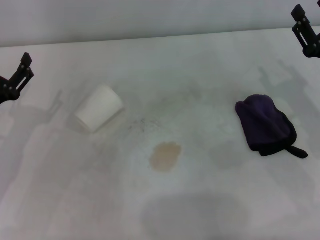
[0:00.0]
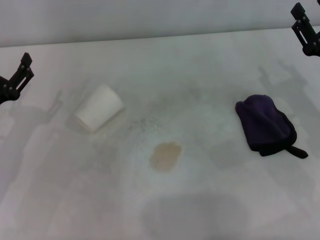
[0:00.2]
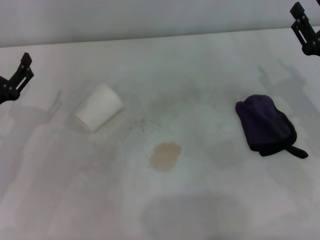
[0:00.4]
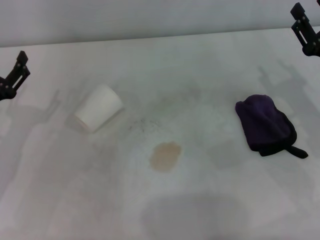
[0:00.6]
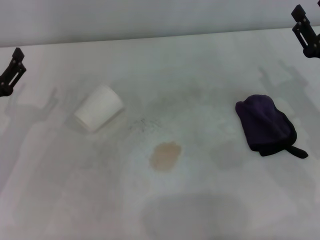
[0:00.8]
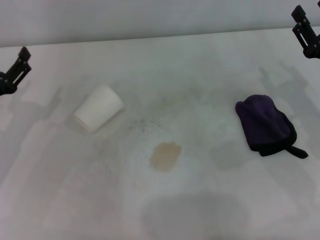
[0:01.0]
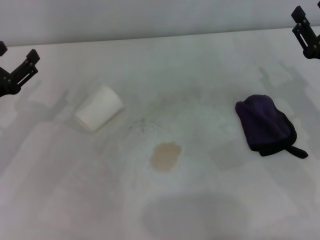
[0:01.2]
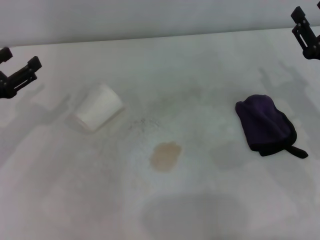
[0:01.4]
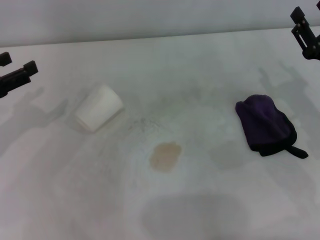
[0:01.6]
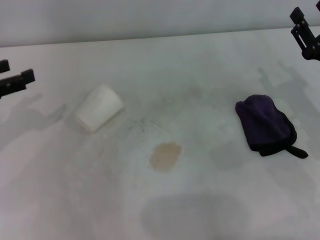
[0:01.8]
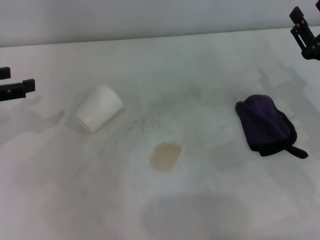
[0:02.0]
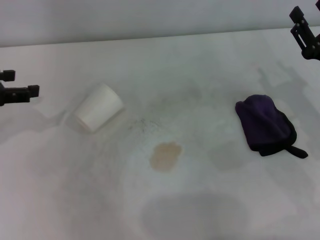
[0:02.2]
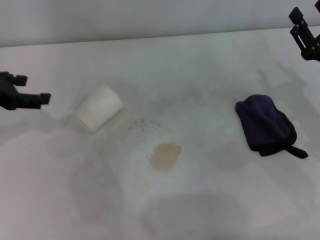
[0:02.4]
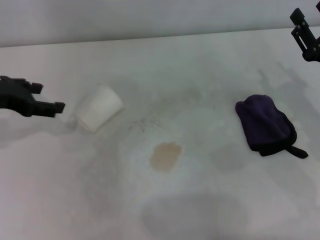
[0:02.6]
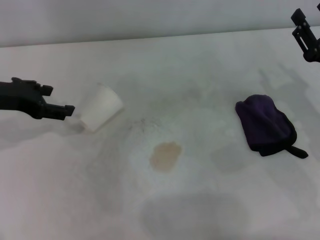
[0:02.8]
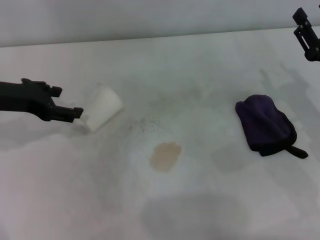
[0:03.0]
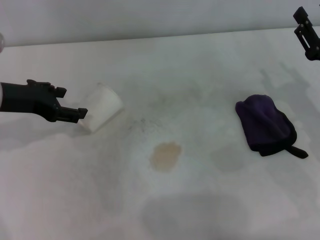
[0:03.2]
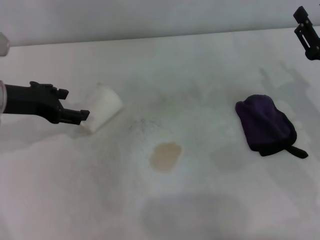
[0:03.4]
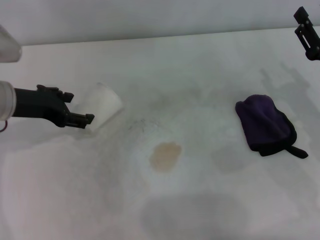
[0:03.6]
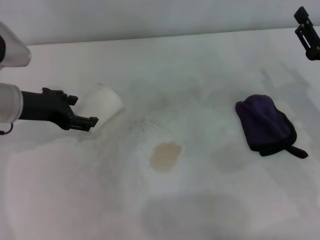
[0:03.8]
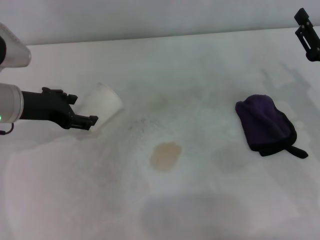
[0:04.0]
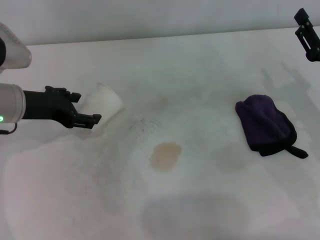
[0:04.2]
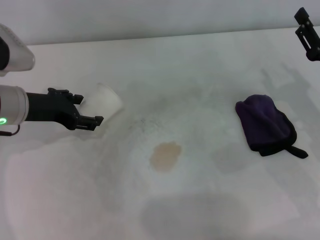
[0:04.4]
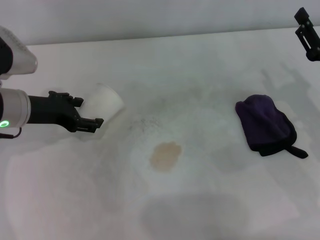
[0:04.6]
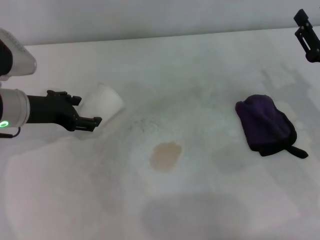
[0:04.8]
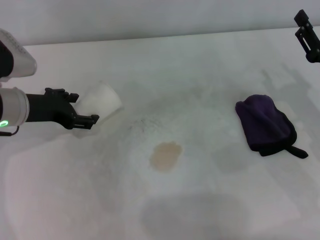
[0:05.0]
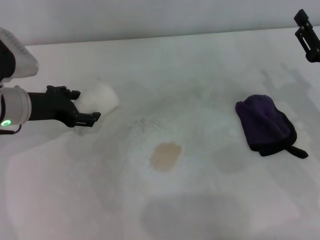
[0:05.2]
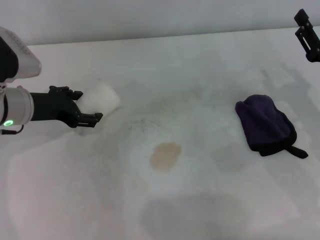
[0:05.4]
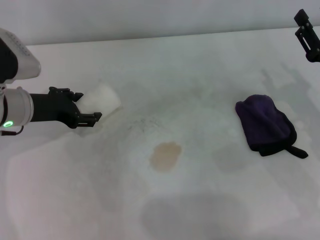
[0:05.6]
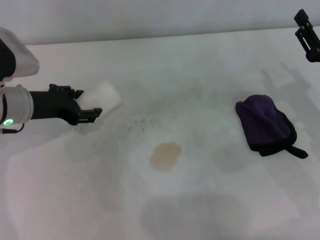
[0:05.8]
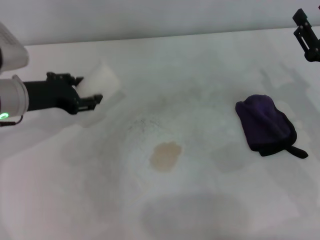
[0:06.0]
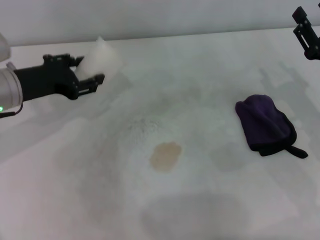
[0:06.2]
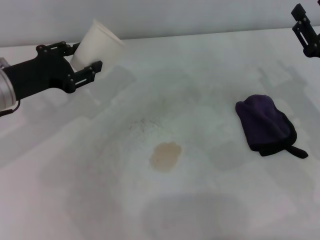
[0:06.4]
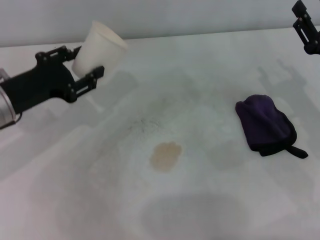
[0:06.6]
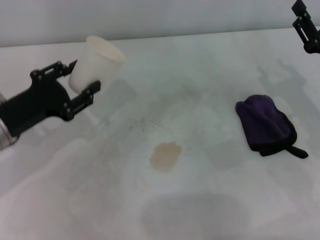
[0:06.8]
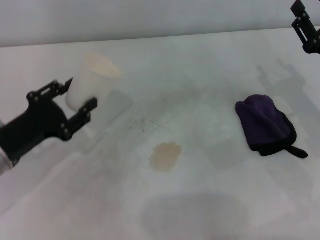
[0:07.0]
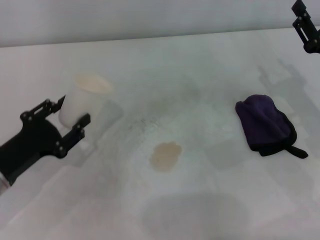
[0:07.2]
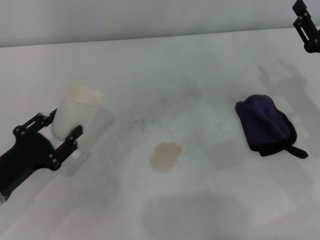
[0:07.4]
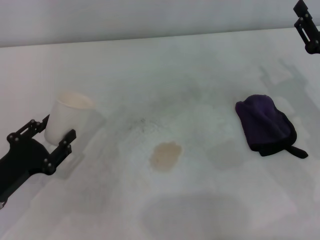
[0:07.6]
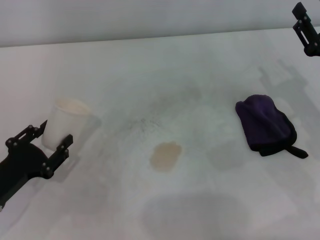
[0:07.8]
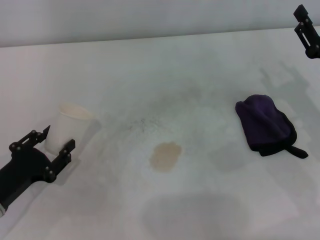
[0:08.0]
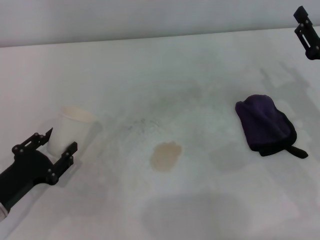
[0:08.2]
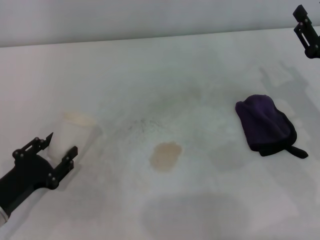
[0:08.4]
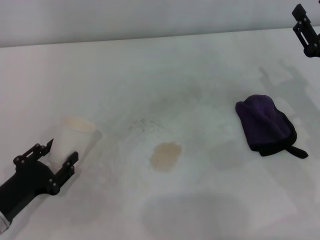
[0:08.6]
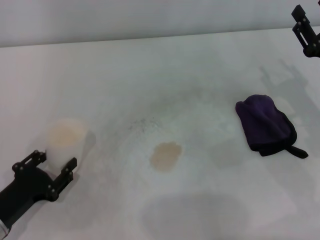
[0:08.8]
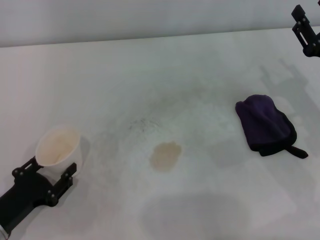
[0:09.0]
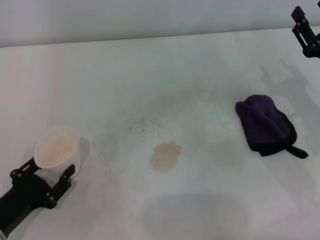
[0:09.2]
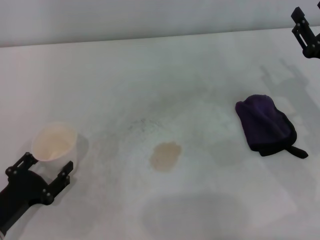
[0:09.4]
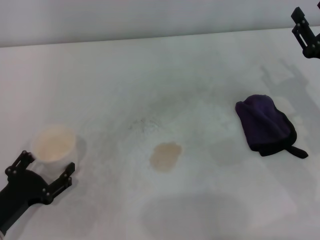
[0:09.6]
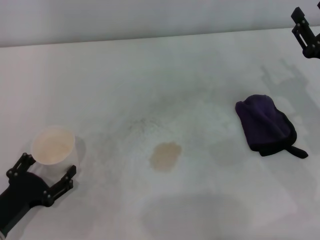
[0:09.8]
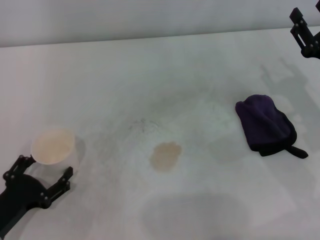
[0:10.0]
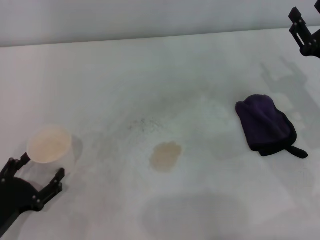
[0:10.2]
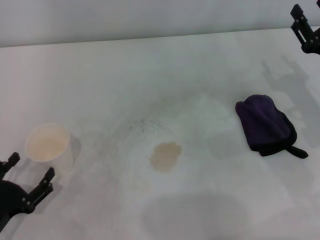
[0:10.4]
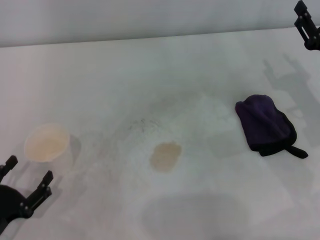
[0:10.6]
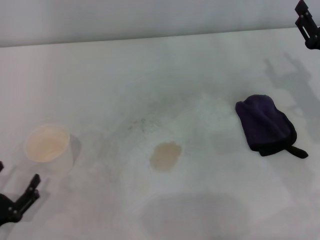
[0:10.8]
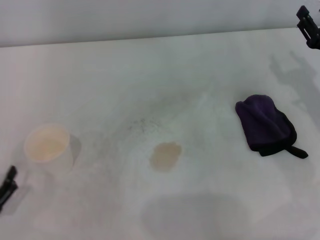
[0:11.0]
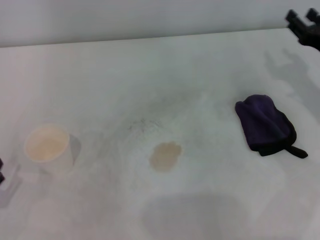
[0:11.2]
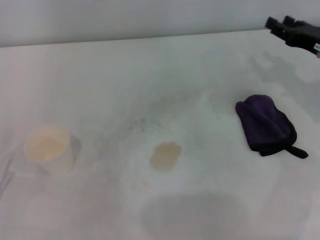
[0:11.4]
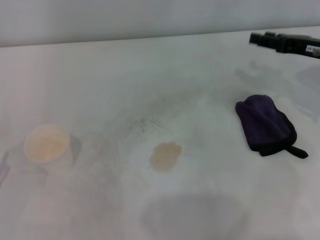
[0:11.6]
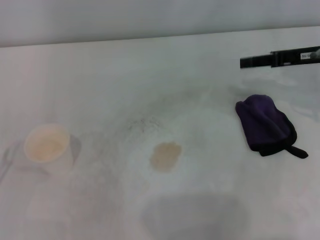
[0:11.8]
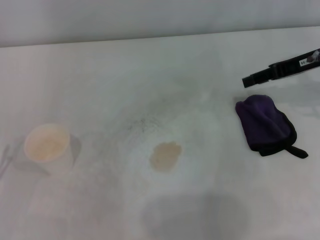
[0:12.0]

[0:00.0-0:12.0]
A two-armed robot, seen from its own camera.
Step, 0:00.0 to 0:05.6: Grasp the paper cup with the left gripper.
Step, 0:05.8 to 0:09.6: Stand the paper cup upright with the left gripper.
0:00.0 to 0:01.6: The left gripper heads upward, covering approximately 5 cm.
0:01.6 to 0:03.0: The left gripper is displaced to the right and forward by about 10 cm.
0:03.0 to 0:04.4: The left gripper shifts by roughly 5 cm.
0:04.4 to 0:06.0: The left gripper closes up.
0:06.0 to 0:07.6: The left gripper goes some 15 cm backward and downward, and closes up.
0:07.6 to 0:09.0: There are only small adjustments of the grippers.
0:09.0 to 0:10.4: The left gripper opens its fingers.
0:10.4 to 0:12.0: The right gripper shifts about 10 cm upward and forward, while the left gripper ends up about 5 cm from where it was.

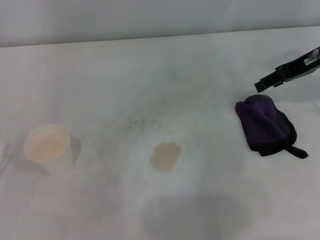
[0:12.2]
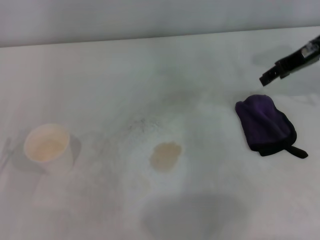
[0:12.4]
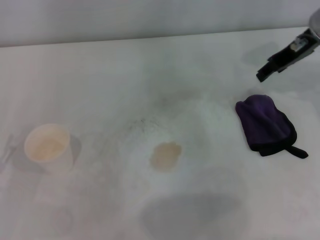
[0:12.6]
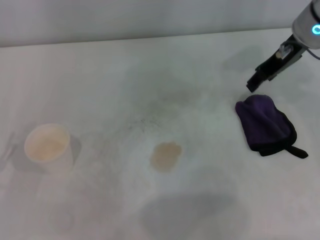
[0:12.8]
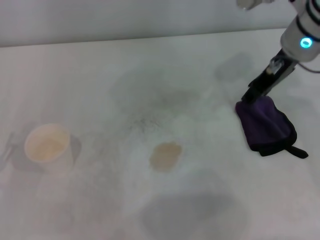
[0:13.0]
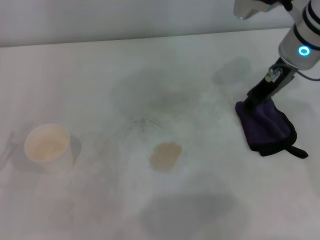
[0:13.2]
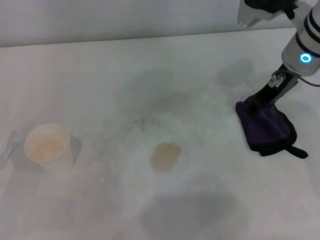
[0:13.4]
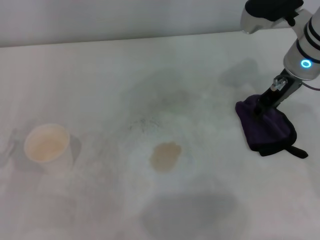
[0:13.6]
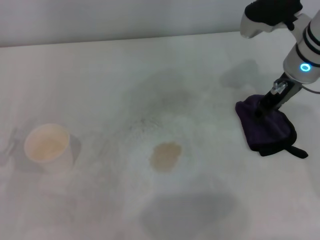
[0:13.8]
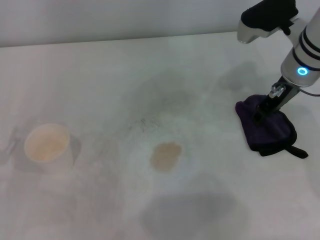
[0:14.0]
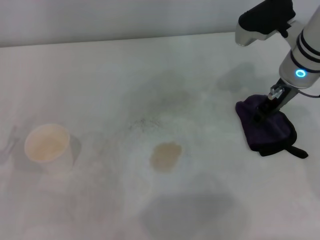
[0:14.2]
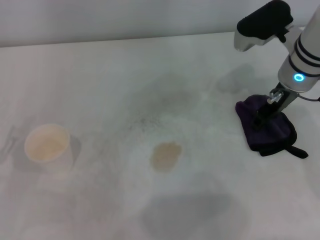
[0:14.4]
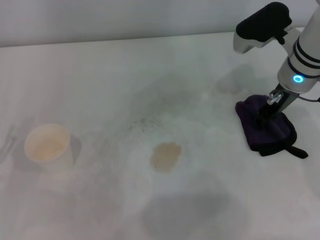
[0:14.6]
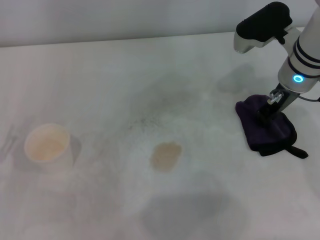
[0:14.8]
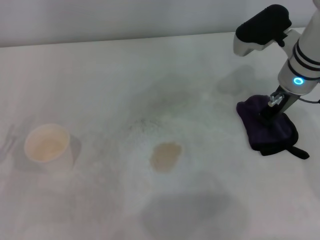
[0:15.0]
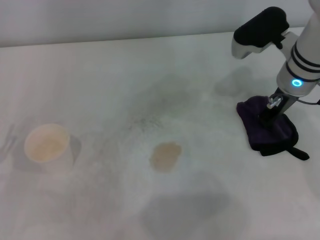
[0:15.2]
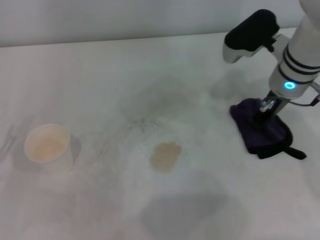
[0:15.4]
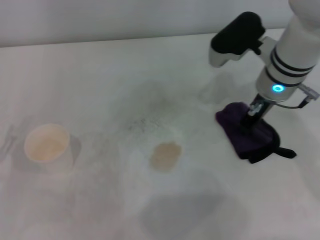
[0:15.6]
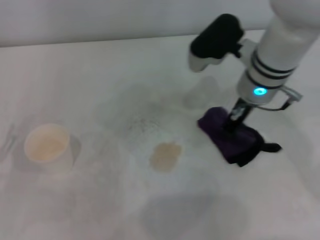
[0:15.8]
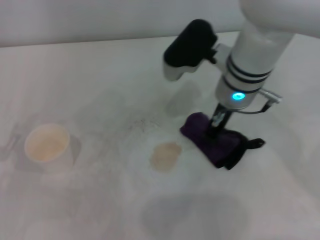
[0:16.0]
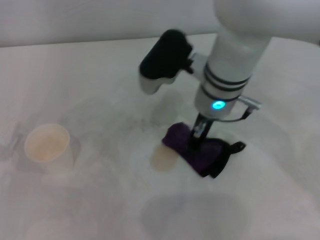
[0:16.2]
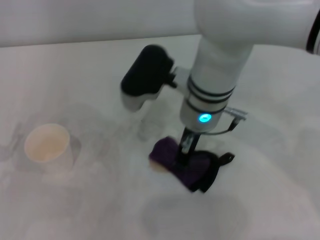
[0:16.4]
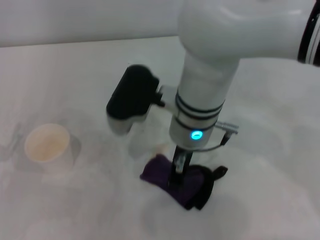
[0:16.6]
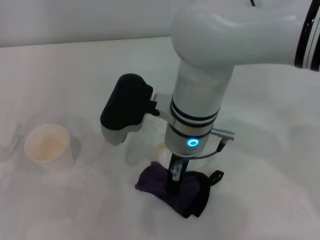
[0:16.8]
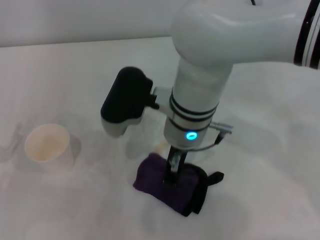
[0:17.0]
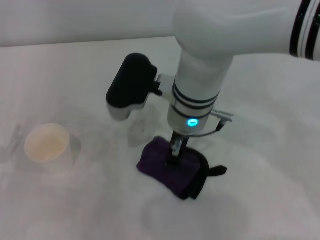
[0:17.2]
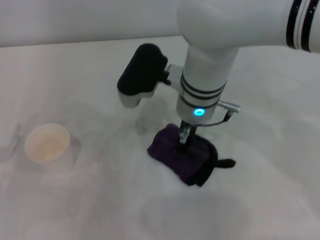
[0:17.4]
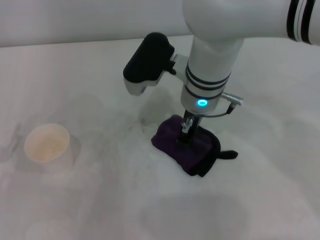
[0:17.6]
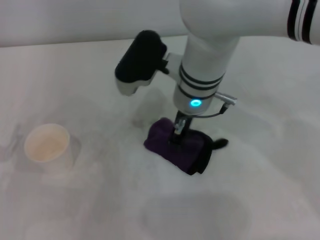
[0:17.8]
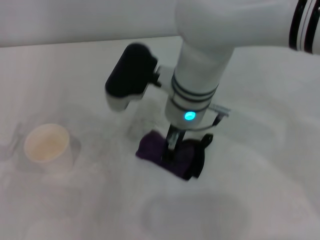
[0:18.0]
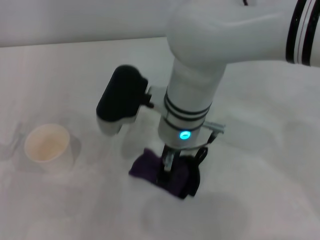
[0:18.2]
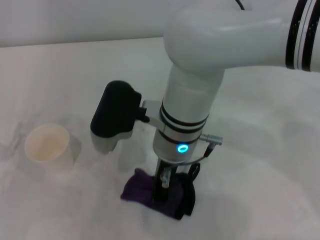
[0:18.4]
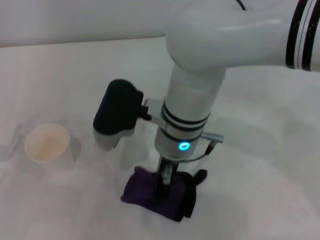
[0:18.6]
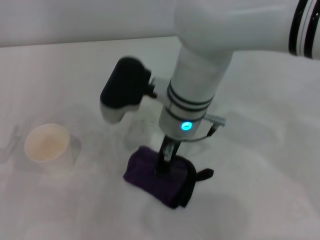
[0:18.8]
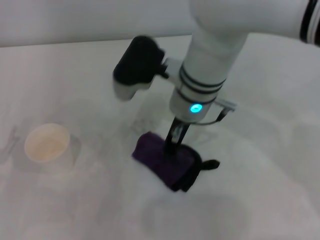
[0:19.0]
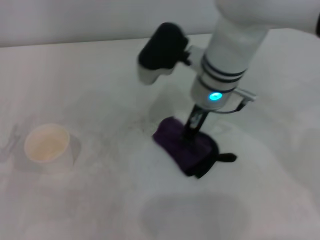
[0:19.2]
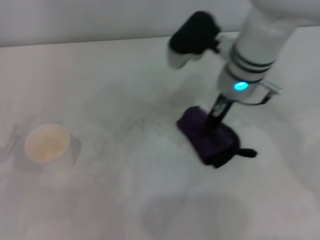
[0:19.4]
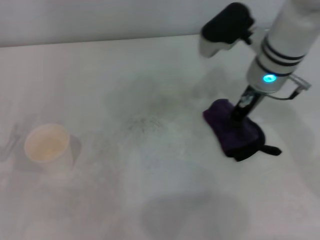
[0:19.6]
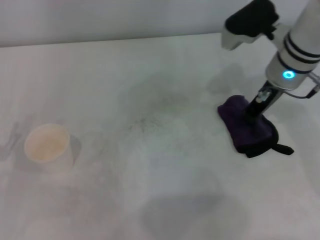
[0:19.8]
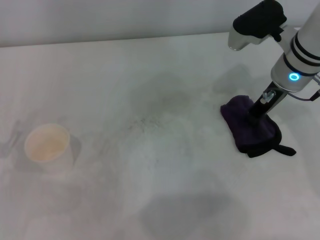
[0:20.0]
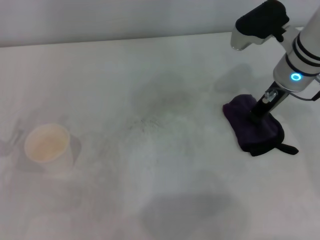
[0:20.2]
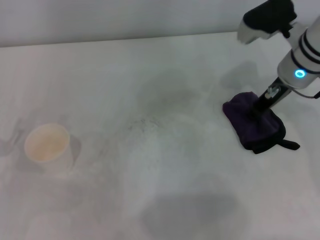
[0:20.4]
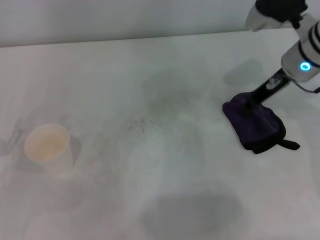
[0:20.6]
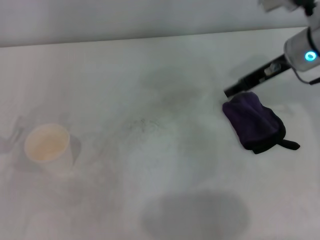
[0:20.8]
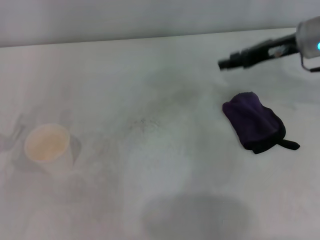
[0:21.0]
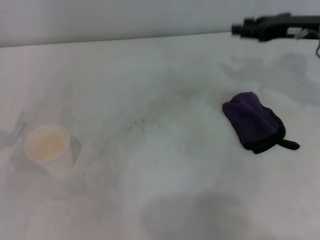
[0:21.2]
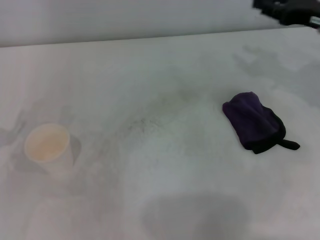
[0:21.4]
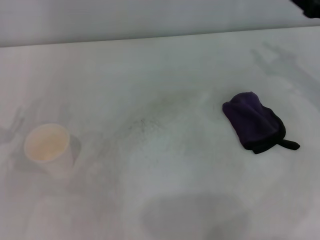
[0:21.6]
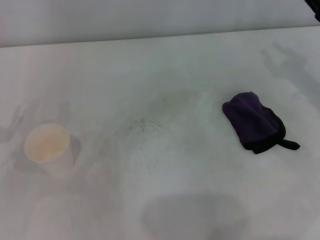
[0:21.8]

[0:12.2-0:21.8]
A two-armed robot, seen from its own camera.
Step, 0:12.2 to 0:14.8: Grasp the rag with the right gripper.
Step, 0:15.2 to 0:19.4: Wipe the stains off the table with the right gripper.
Step, 0:19.6 to 0:20.4: Place the rag on the table with the right gripper.
0:12.2 to 0:13.8: The right gripper moves to the left, roughly 10 cm.
0:13.8 to 0:15.4: The right gripper closes its fingers.
0:15.4 to 0:17.0: The right gripper shifts roughly 15 cm to the left.
0:17.0 to 0:18.6: There are only small adjustments of the grippers.
0:18.6 to 0:20.2: The right gripper goes some 20 cm to the right.
0:20.2 to 0:21.8: The right gripper moves to the right and backward, roughly 15 cm, and opens up.
